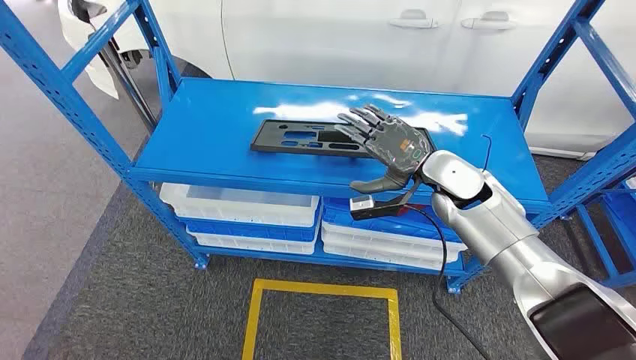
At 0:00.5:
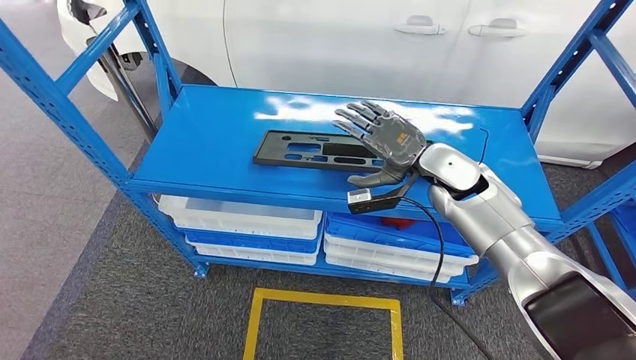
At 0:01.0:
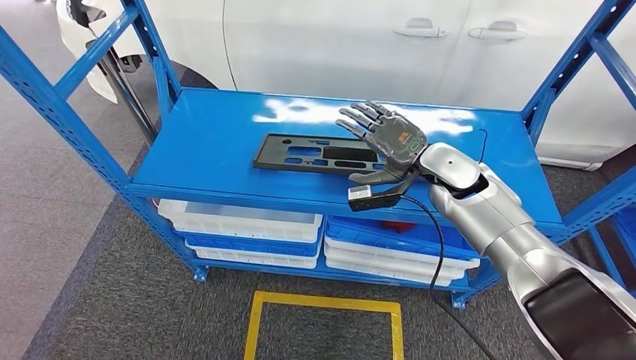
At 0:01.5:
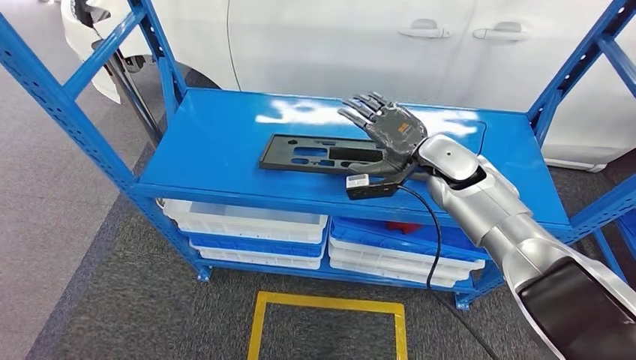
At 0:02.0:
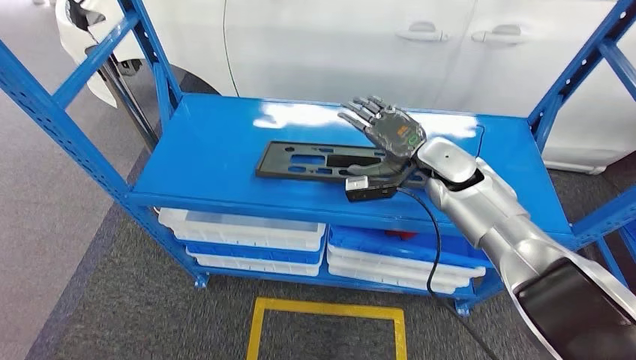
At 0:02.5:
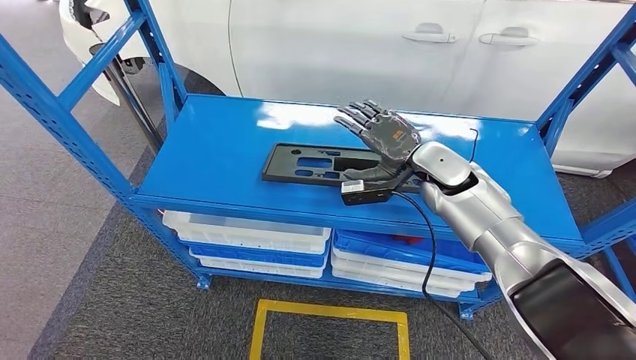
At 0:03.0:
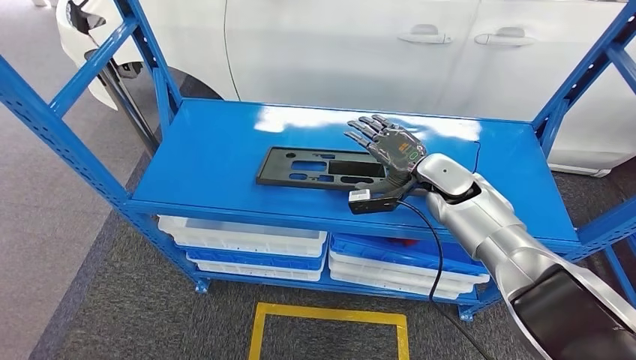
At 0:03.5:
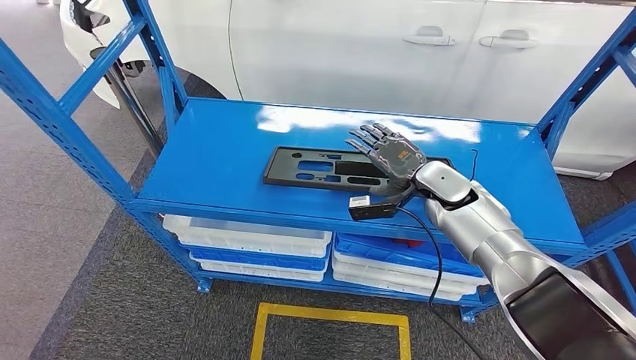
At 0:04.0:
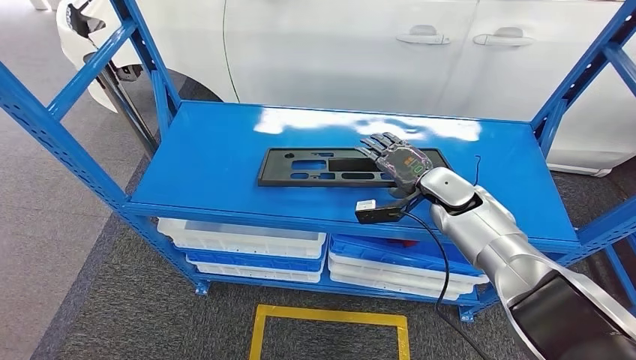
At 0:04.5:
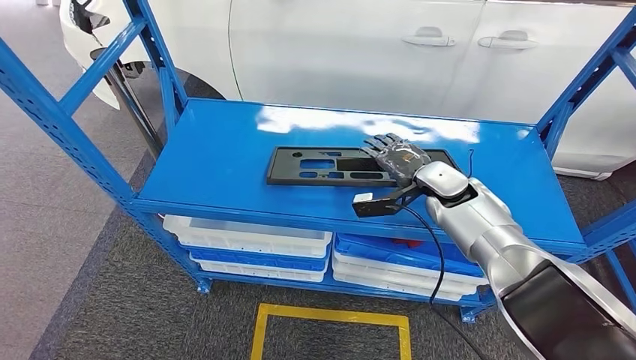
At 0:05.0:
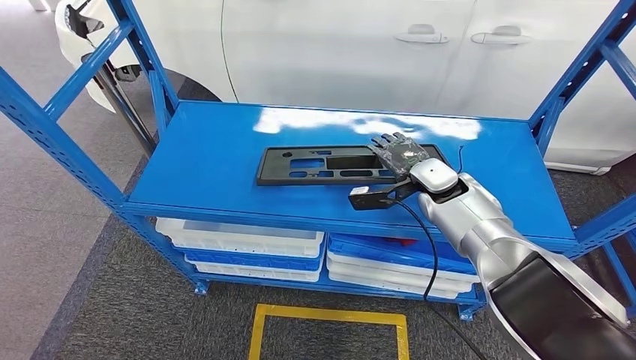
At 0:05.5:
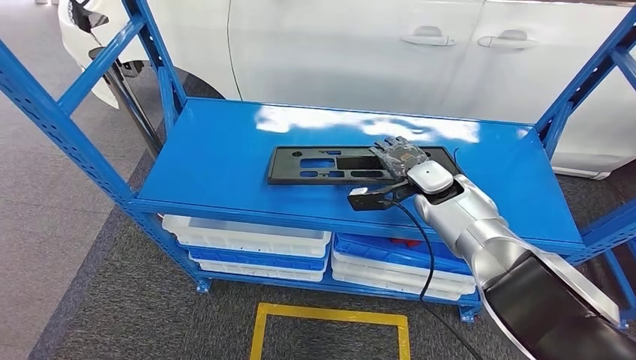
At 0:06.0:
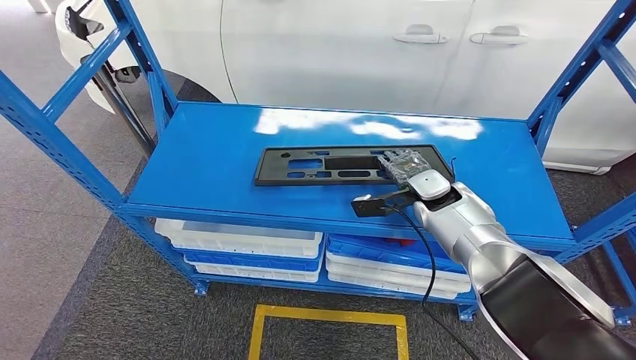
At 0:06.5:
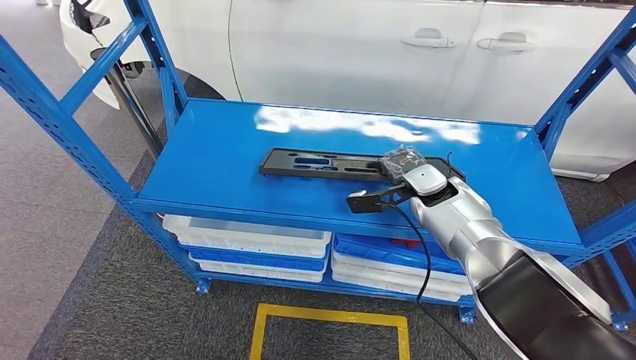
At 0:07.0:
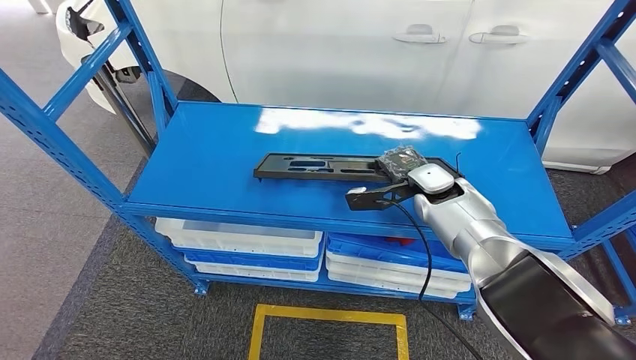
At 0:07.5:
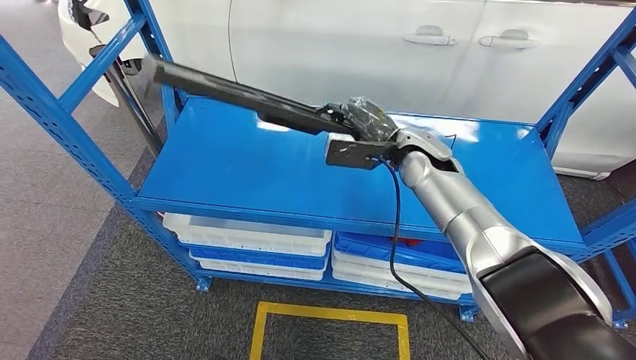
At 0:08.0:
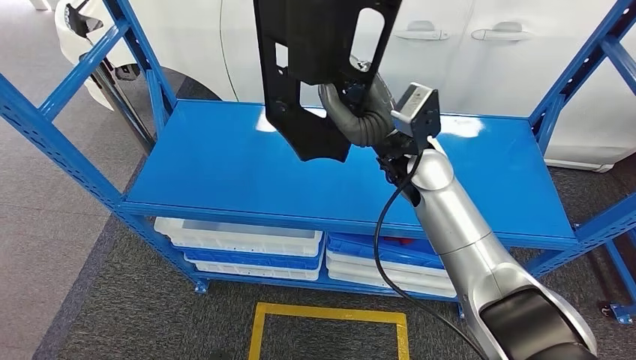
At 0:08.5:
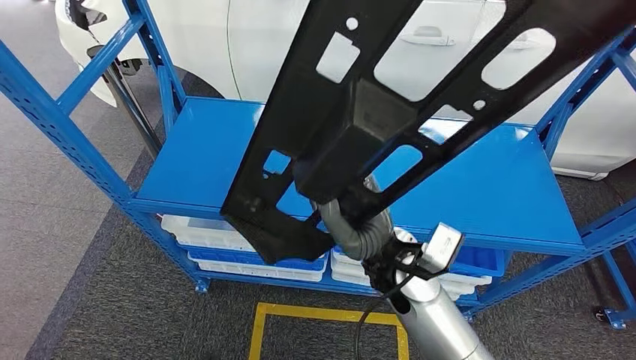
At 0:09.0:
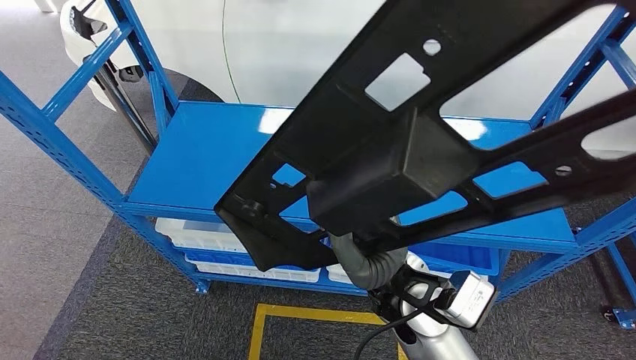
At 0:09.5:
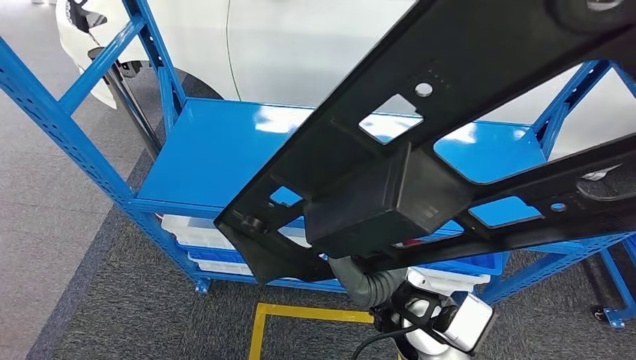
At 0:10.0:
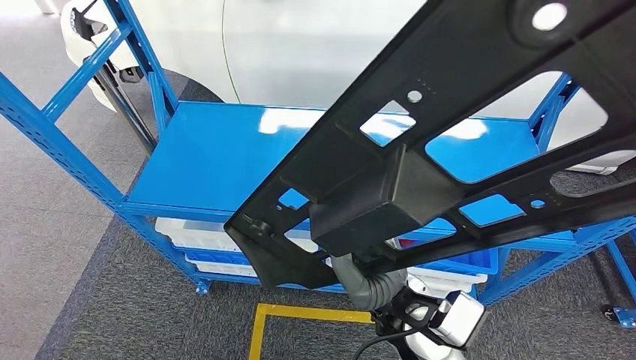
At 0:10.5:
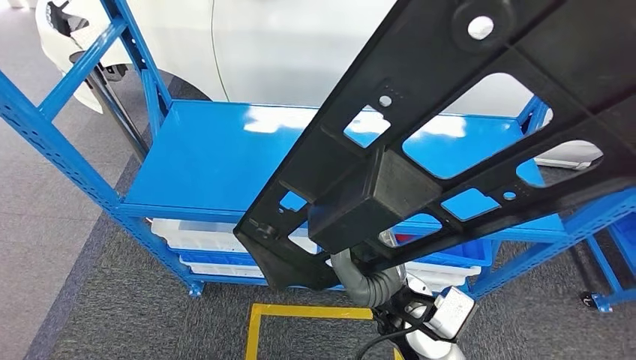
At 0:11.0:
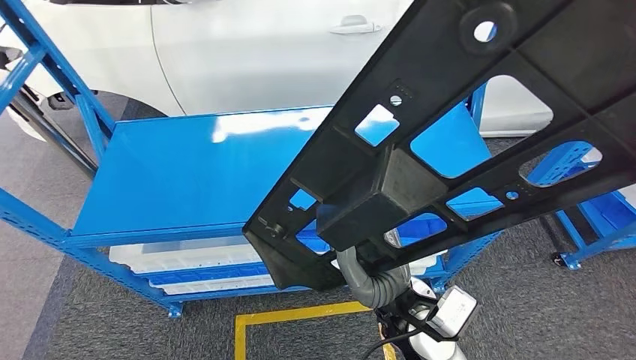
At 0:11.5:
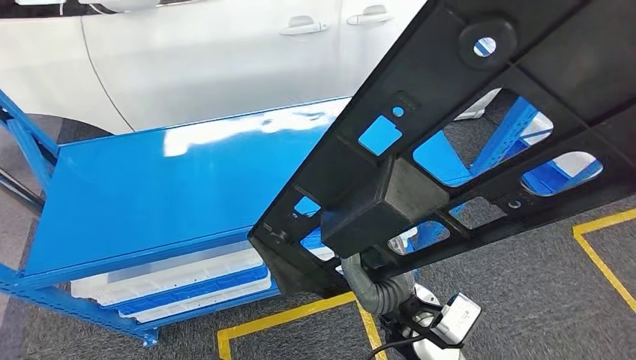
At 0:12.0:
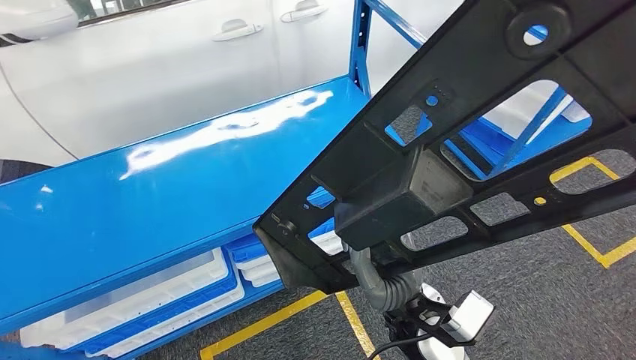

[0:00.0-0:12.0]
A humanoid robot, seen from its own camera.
Step, 0:00.0 to 0:08.0: Pick up the large parts from the shelf.

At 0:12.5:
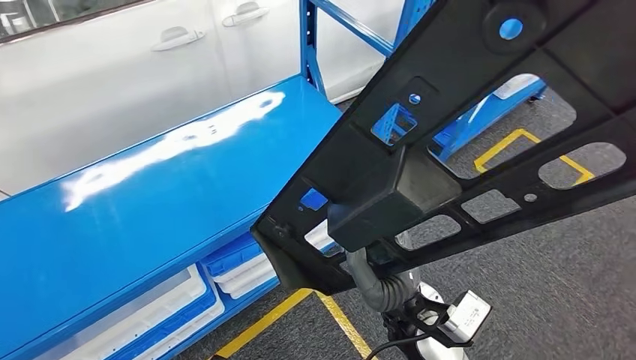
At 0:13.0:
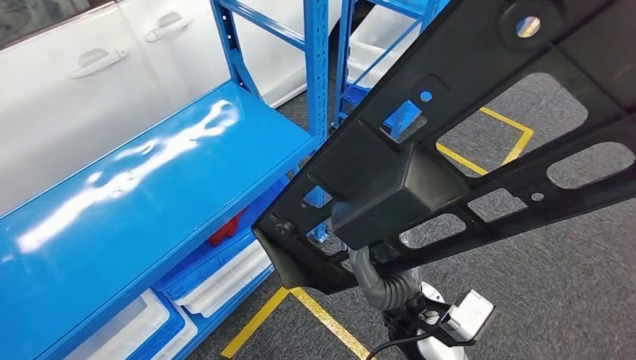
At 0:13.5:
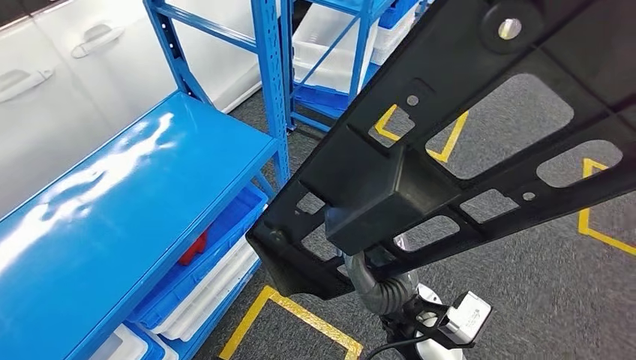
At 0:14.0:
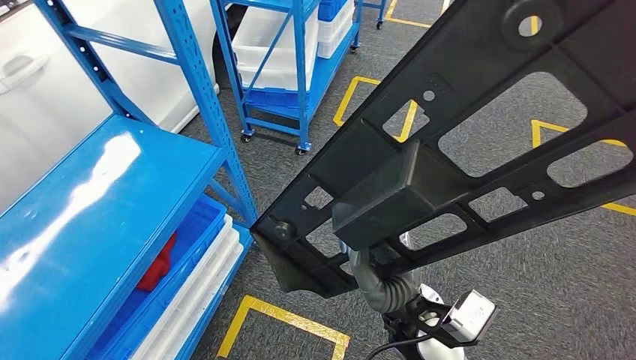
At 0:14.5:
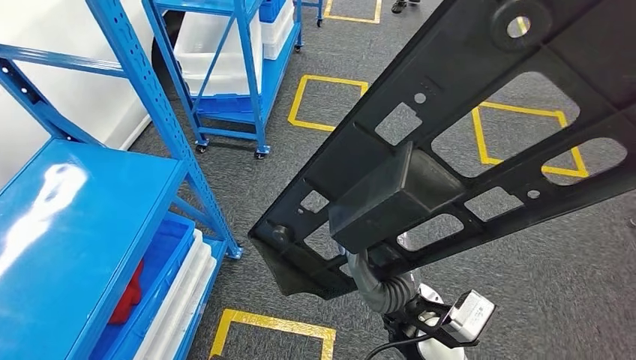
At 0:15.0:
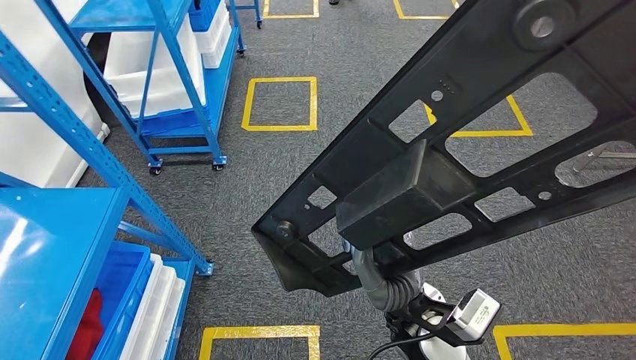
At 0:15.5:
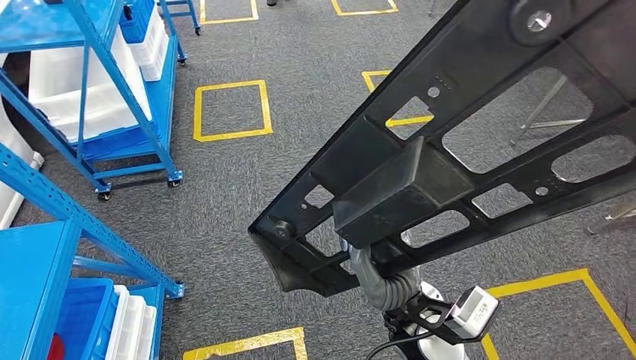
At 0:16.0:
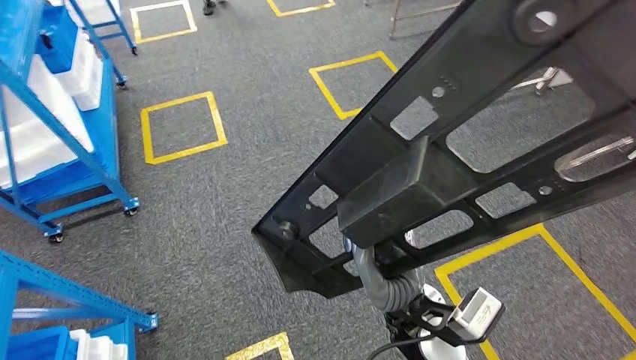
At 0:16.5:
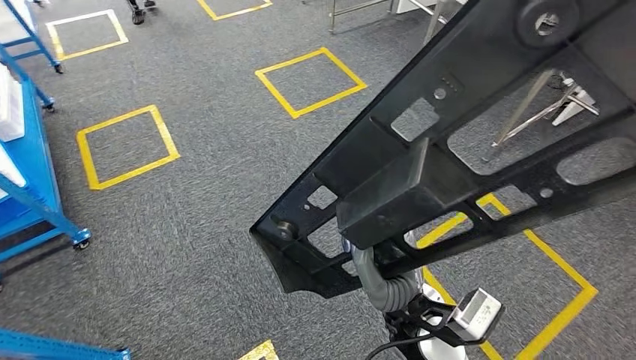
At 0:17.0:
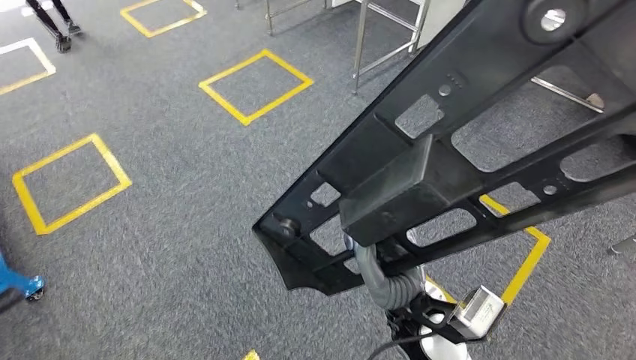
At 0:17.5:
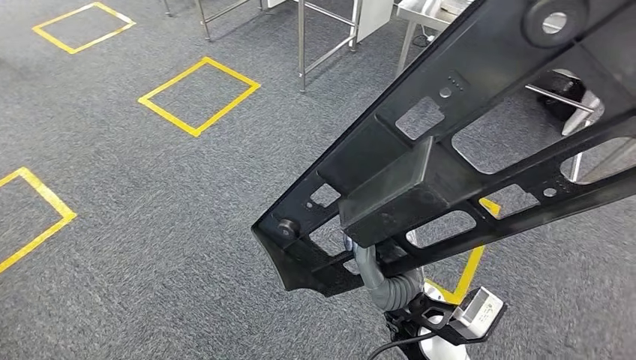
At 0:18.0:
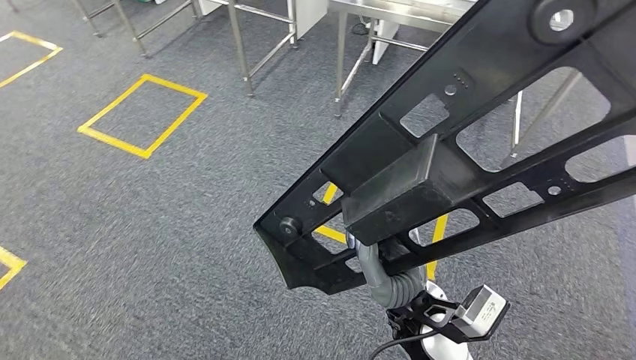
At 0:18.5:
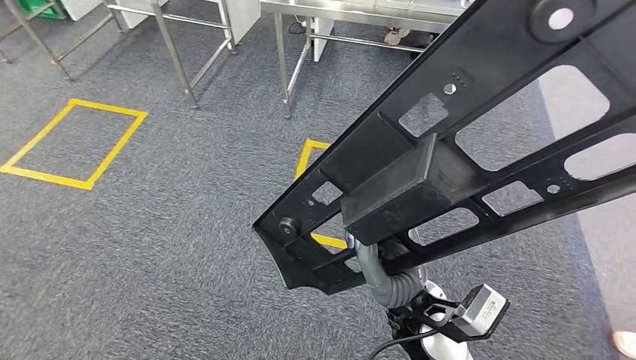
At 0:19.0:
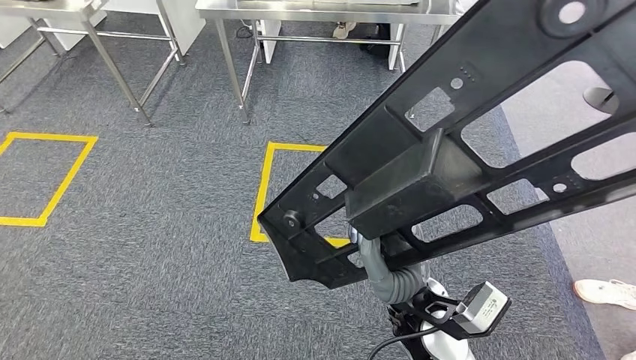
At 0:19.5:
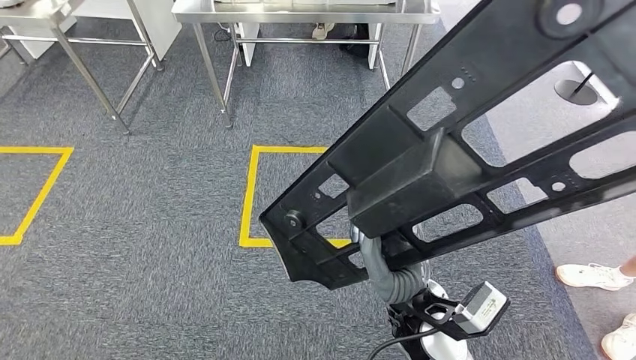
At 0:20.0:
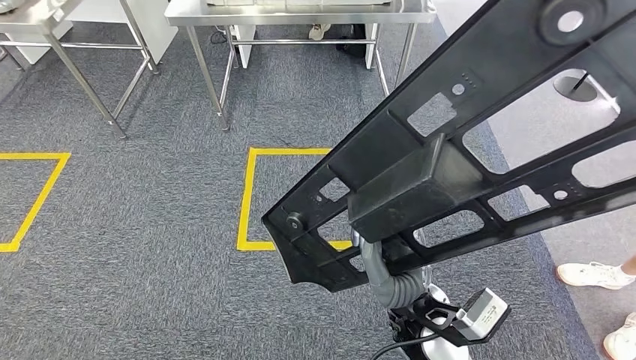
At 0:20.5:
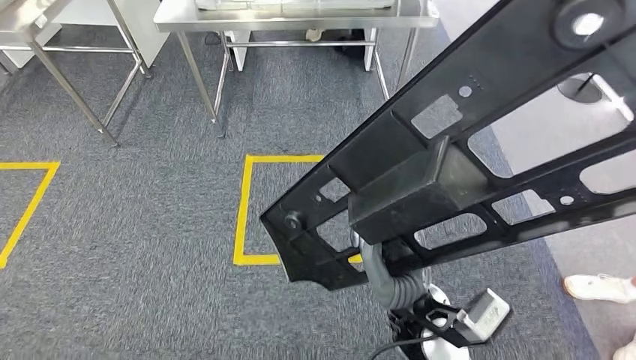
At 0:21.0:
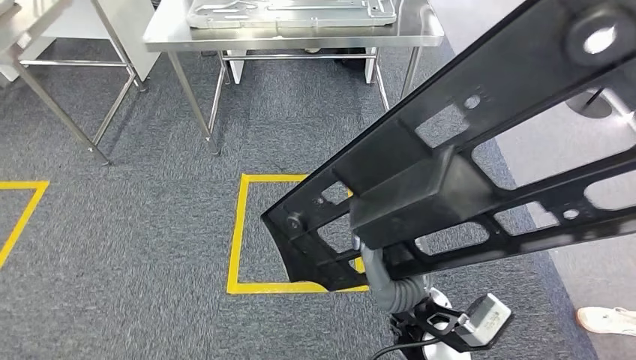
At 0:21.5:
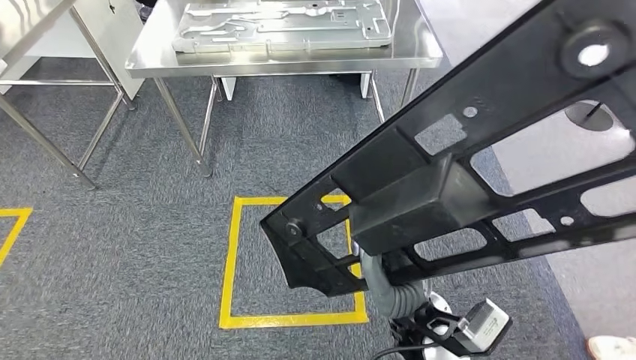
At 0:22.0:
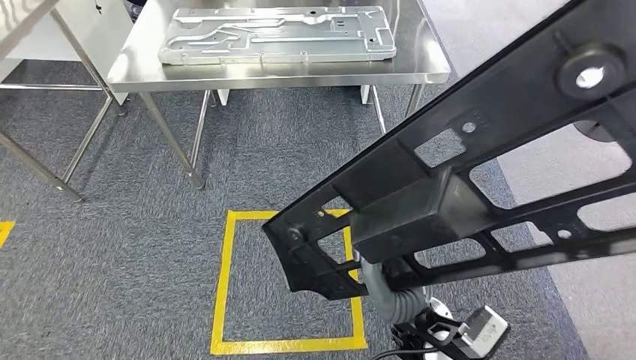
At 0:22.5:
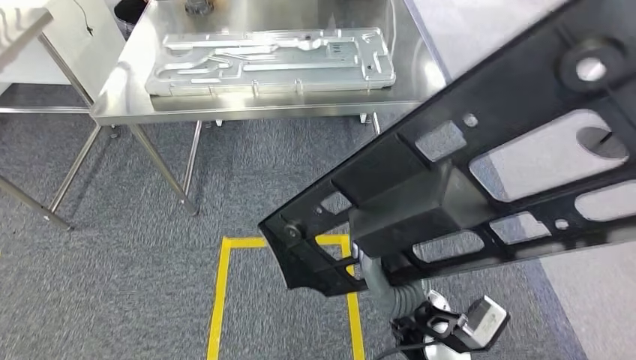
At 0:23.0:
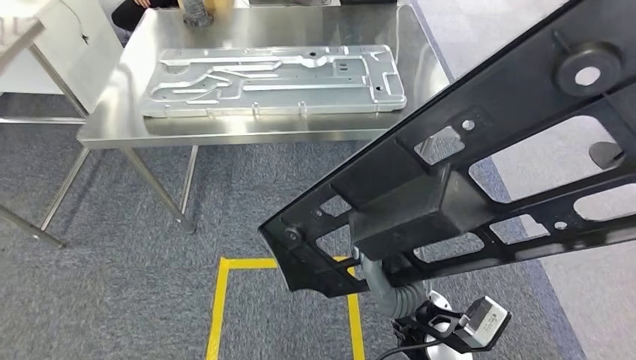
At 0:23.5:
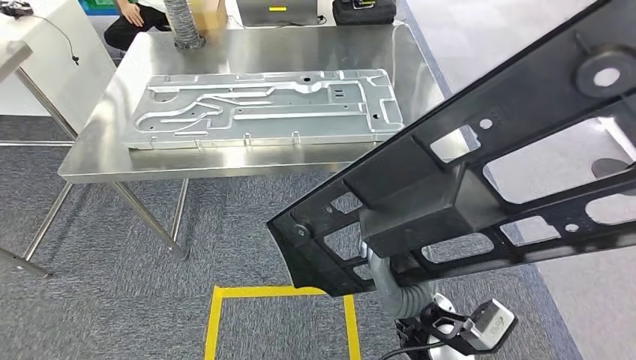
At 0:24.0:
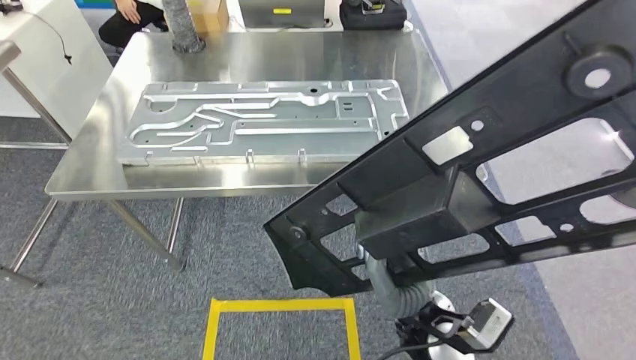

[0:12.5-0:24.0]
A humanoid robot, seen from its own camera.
Step, 0:12.5 to 0:22.5: Move the large parts to the workbench.
